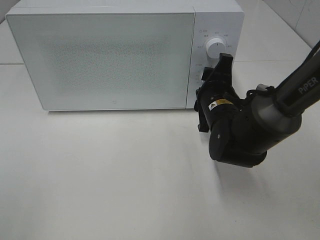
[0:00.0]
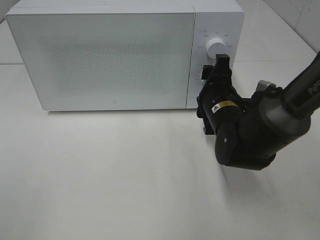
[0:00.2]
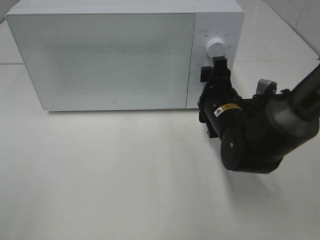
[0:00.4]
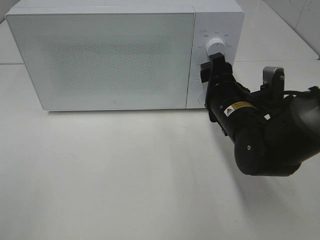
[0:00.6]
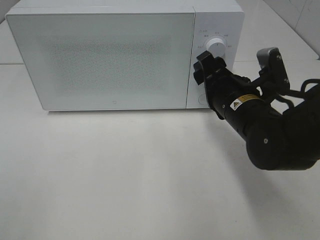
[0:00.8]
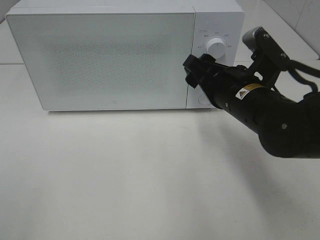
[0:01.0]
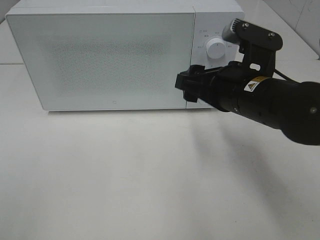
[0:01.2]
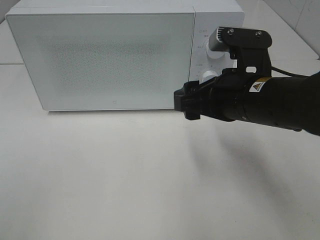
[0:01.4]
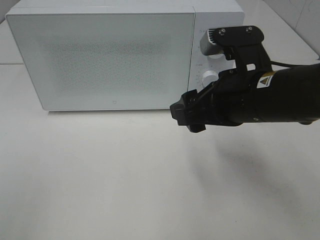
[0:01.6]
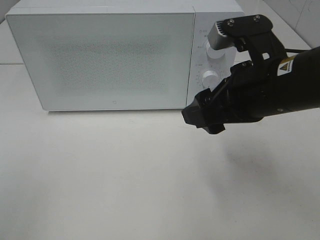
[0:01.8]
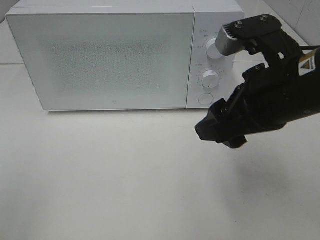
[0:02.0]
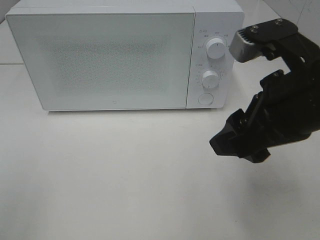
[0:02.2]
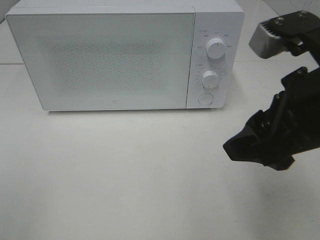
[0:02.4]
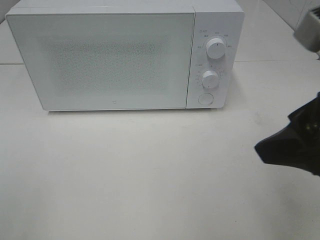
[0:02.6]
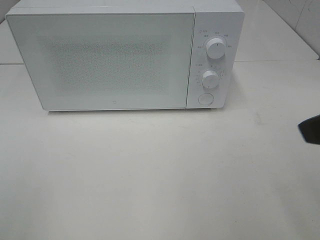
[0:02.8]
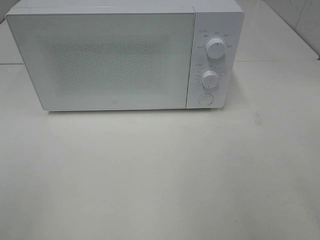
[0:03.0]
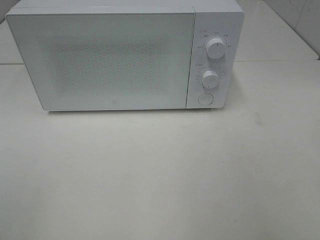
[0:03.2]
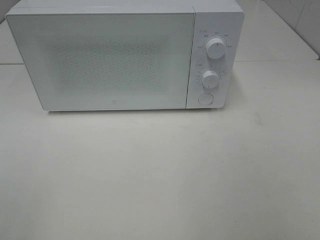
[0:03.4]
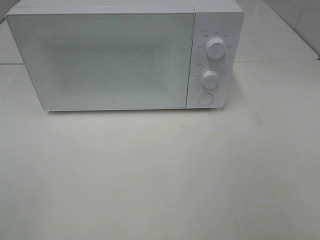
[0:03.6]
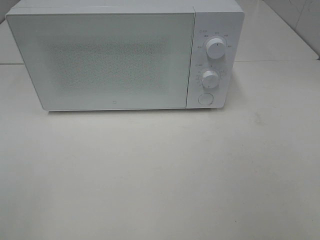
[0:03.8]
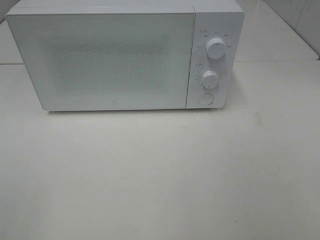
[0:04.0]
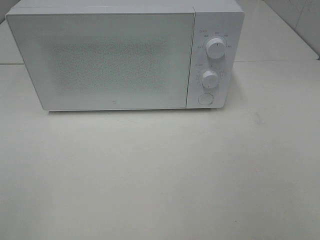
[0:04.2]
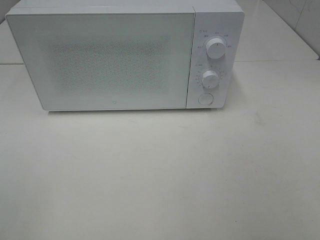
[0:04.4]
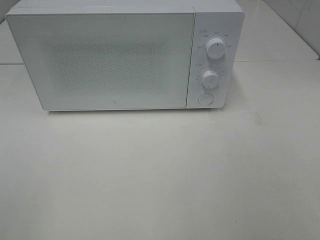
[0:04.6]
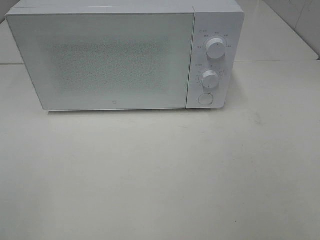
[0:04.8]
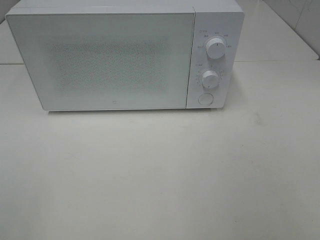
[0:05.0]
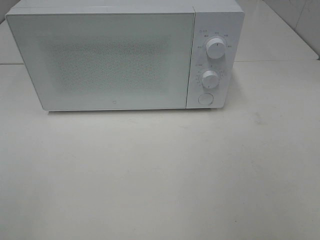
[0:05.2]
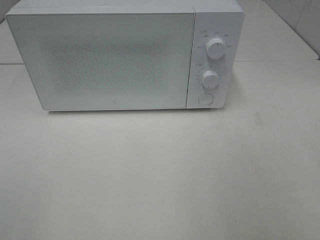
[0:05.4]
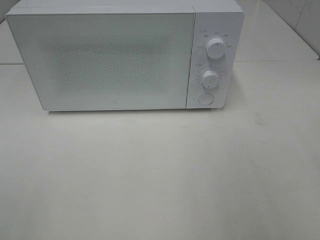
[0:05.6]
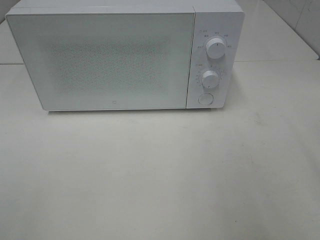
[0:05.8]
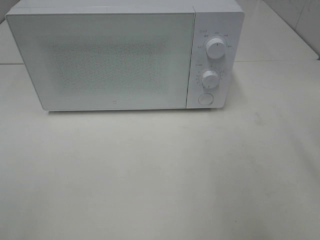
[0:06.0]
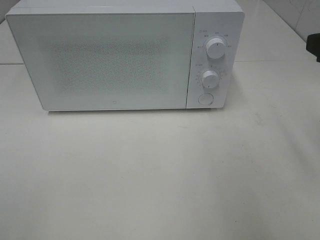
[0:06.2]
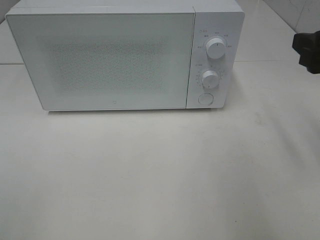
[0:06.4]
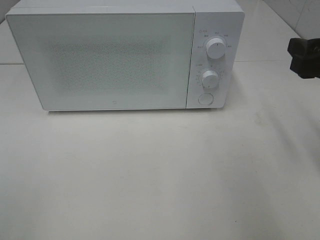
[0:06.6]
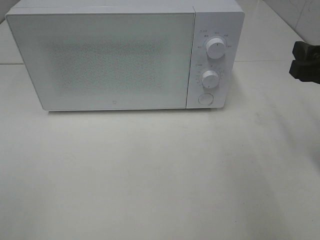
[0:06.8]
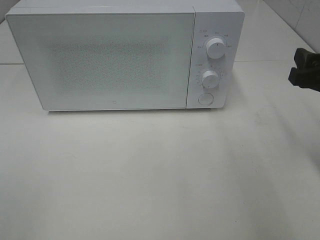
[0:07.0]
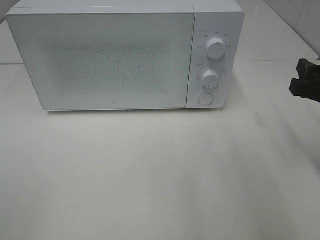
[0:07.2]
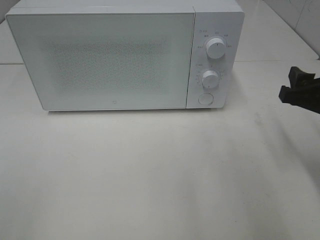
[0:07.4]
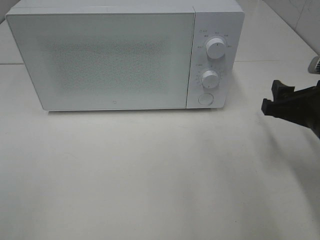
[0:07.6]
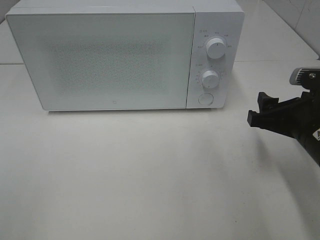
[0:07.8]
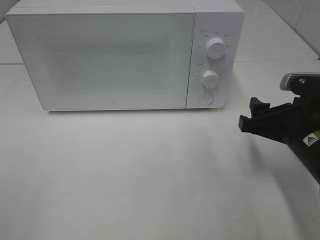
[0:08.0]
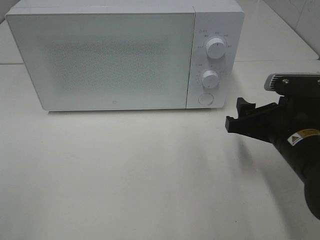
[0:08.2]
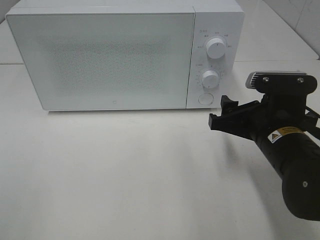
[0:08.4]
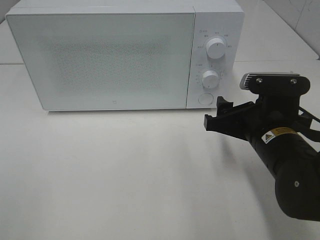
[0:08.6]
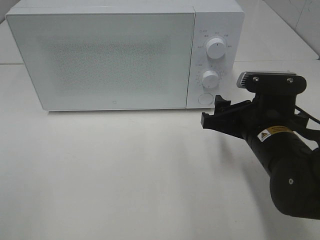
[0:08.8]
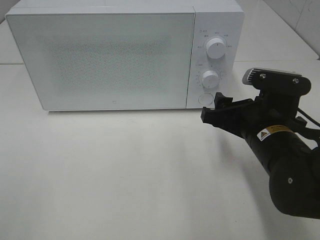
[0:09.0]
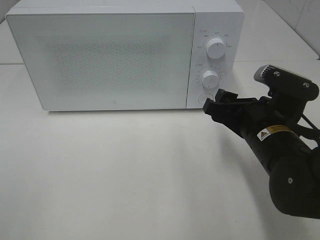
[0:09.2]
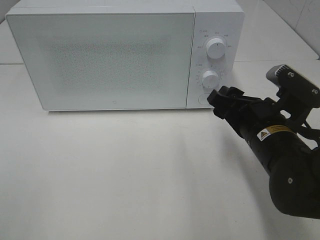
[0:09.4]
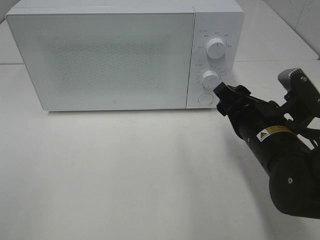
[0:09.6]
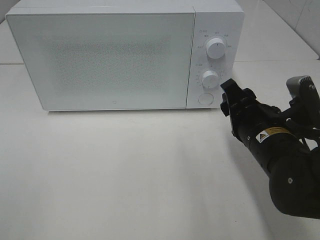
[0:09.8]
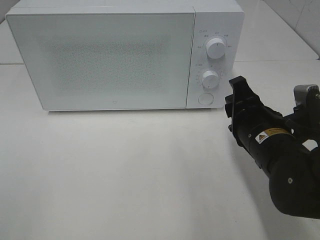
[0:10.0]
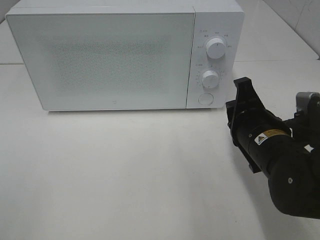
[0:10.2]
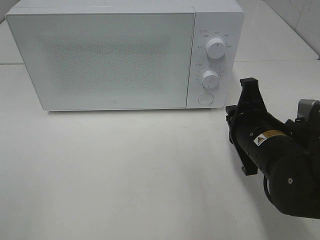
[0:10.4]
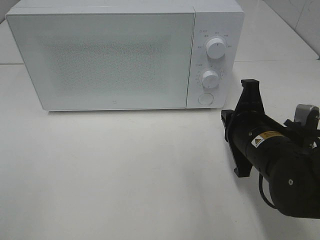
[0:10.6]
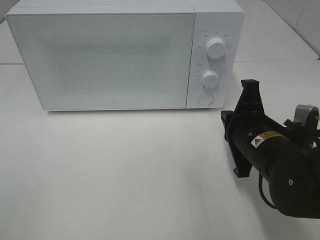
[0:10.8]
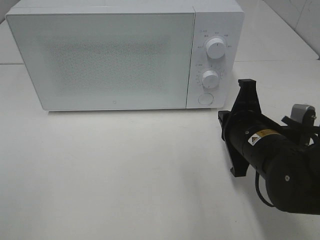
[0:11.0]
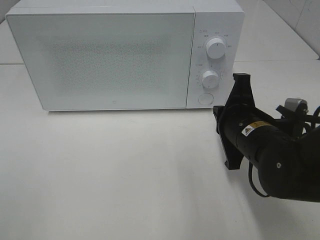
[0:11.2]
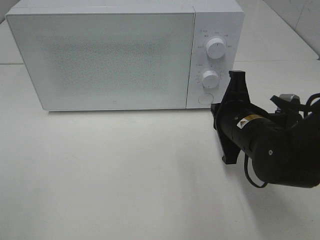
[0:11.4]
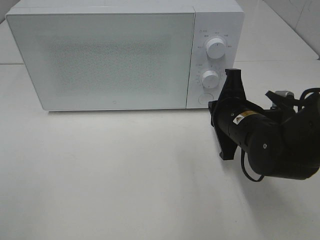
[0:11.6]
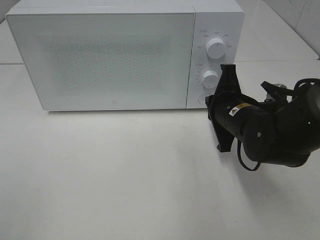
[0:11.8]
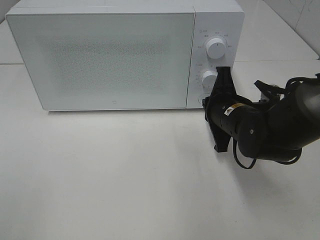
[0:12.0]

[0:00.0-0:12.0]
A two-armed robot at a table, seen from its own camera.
Task of the whole recording: Heat the burger.
0:00.0 to 0:01.6: The right gripper moves upward and backward, roughly 15 cm.
0:01.6 to 0:03.0: The right gripper goes about 20 cm backward, to the right and upward.
0:06.0 to 0:07.6: The right gripper is displaced downward by roughly 15 cm.
0:07.6 to 0:09.0: The right gripper travels to the left by roughly 10 cm.
0:09.0 to 0:10.4: The right gripper closes.
0:10.4 to 0:12.0: The right gripper moves forward, approximately 10 cm.

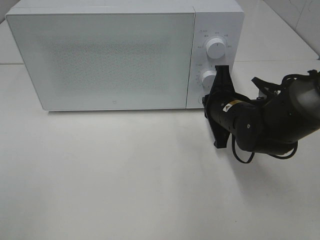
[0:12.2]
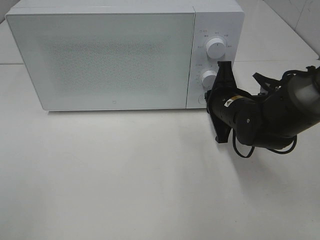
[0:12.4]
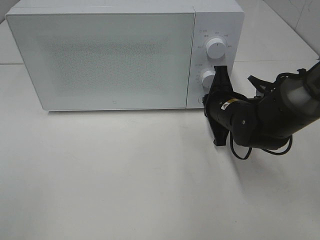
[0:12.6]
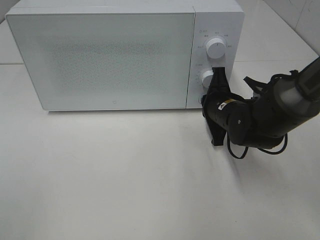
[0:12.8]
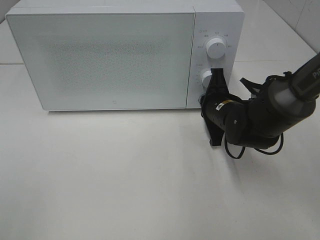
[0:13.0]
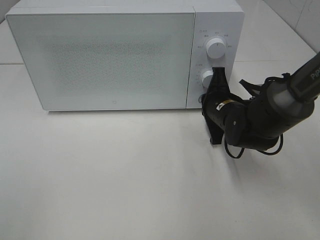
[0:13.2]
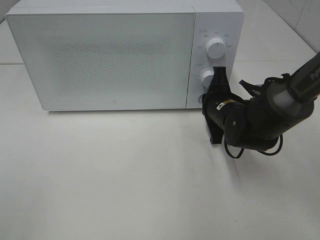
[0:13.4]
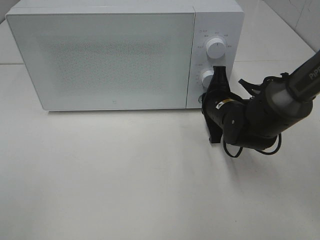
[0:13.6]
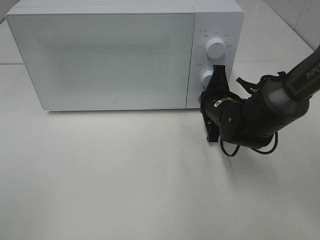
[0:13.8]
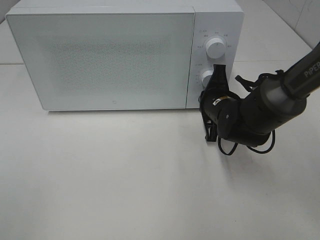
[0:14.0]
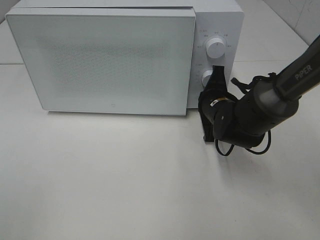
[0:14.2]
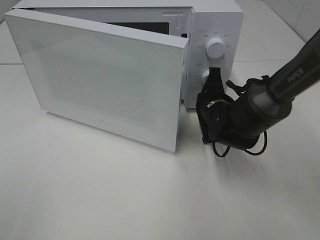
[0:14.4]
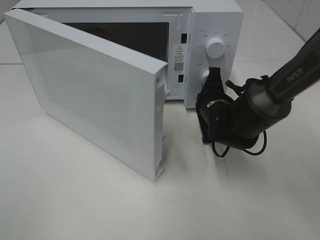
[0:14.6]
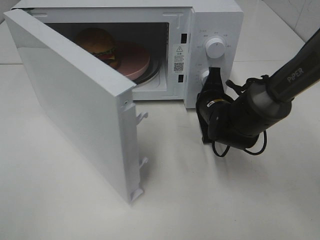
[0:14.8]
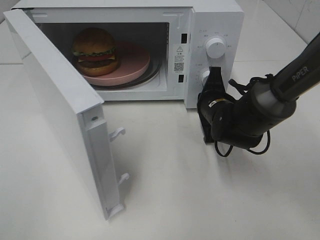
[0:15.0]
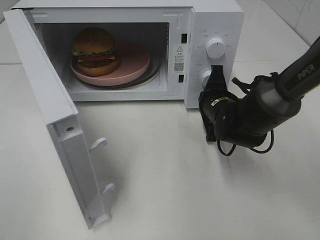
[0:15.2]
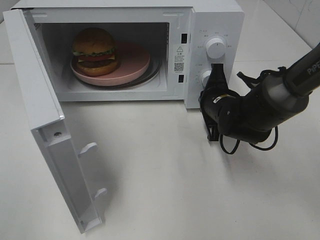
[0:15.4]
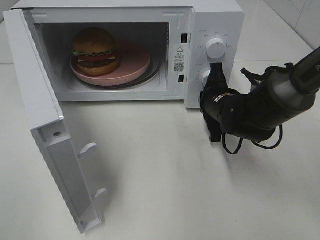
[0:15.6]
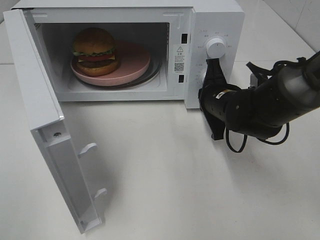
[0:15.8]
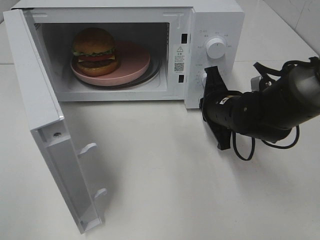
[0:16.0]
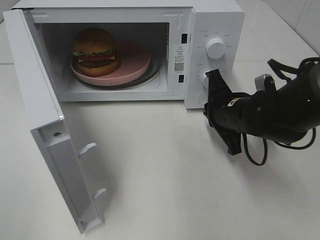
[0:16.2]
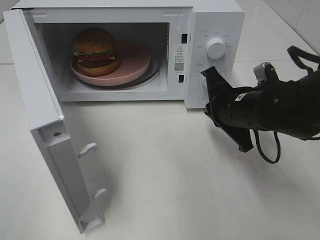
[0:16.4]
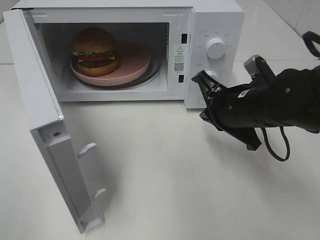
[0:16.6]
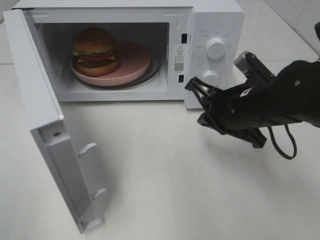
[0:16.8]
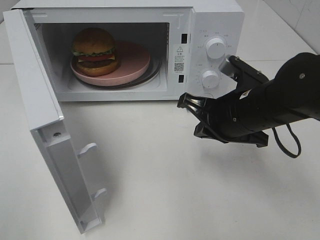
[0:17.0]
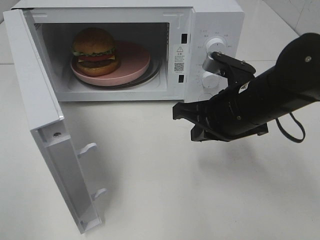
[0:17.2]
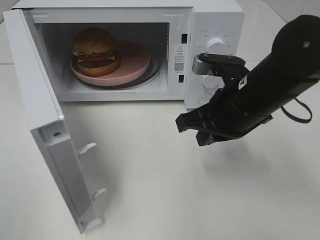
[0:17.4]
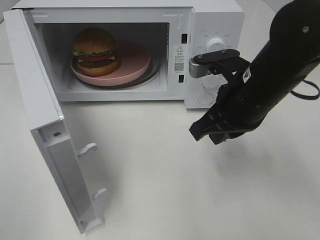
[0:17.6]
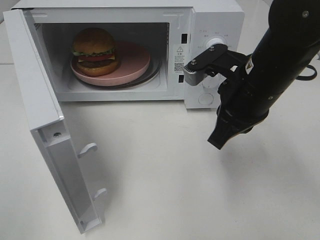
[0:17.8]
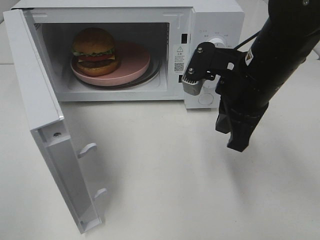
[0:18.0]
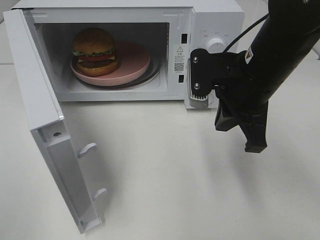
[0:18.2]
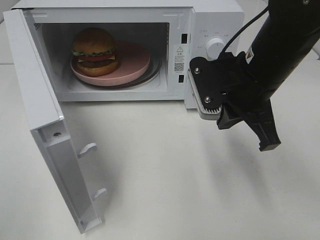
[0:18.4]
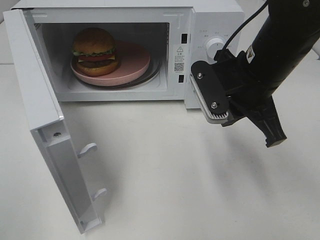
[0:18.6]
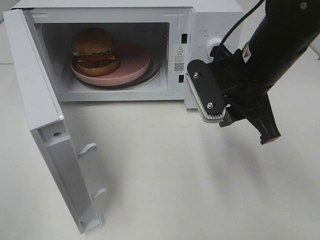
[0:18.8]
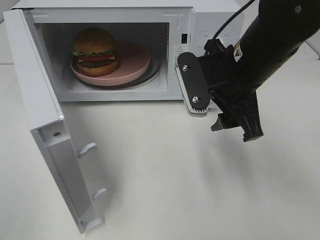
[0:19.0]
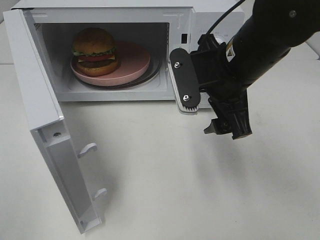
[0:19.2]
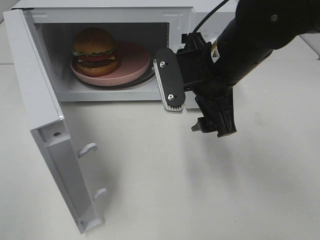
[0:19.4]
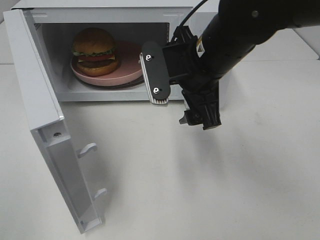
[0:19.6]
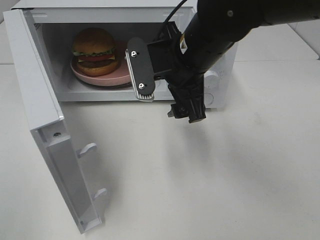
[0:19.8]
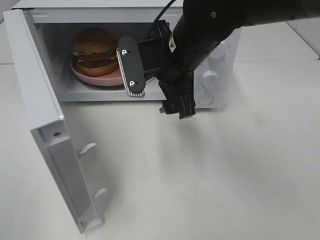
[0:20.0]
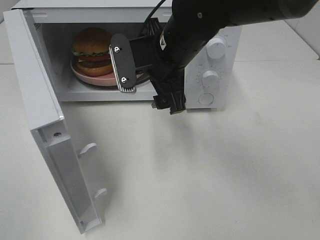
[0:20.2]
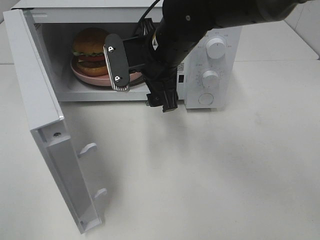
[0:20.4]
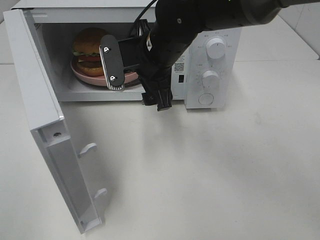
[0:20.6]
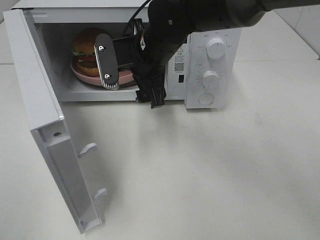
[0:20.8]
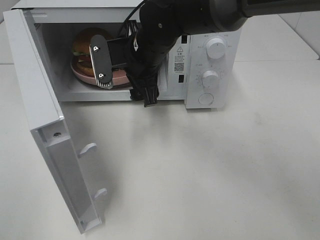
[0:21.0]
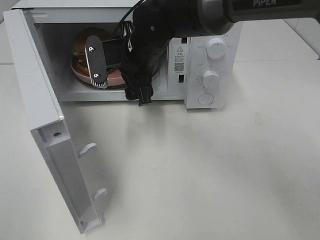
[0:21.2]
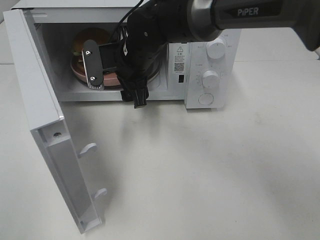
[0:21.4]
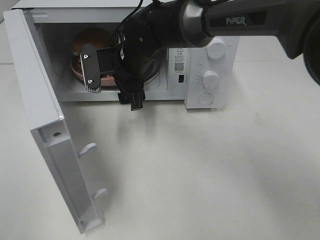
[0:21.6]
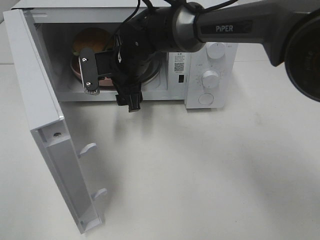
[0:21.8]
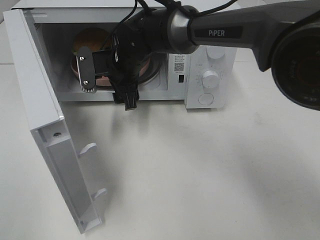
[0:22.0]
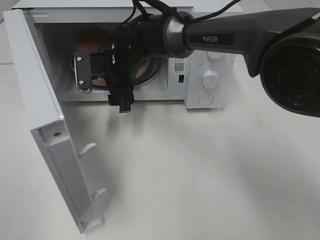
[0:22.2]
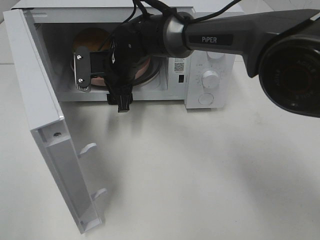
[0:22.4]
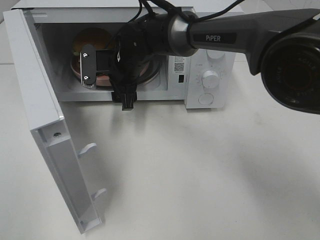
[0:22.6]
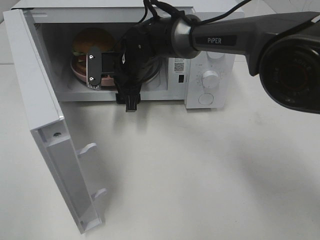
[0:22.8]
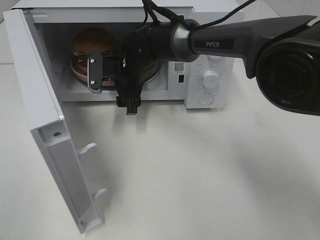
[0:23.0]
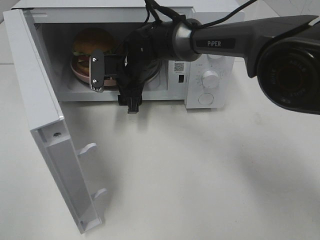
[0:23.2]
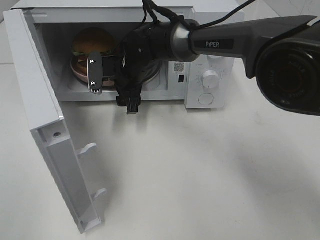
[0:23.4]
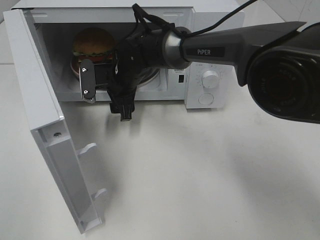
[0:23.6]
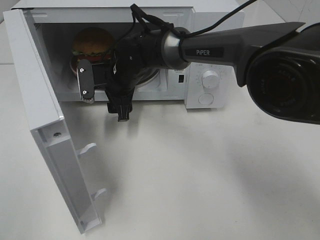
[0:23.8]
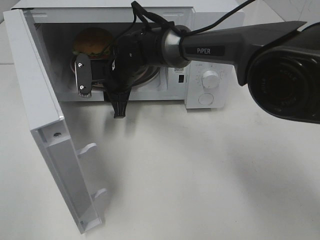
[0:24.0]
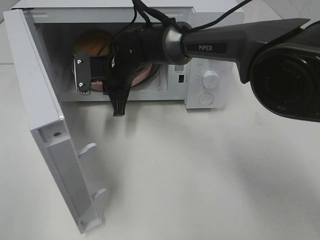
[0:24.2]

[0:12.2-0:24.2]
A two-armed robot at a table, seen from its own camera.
Task of the whole recording: Heat the burger.
Step, 0:12.2 to 0:15.6: Right hand: press the switch.
Step, 0:15.8 to 0:24.2: Right hand: grab the plate with the hamburger.
0:12.2 to 0:13.8: The grippers stay close to where they were, moving slightly.
0:15.2 to 0:16.6: The right gripper travels backward and upward by approximately 10 cm.
0:16.6 to 0:18.2: The right gripper heads upward, covering approximately 5 cm.
0:18.2 to 0:19.8: The right gripper travels to the left by approximately 10 cm, and opens.
0:19.8 to 0:21.2: The right gripper travels forward and to the left by some 10 cm.
0:21.2 to 0:22.6: The right gripper shifts by some 5 cm.
0:22.6 to 0:24.2: The right gripper closes.
